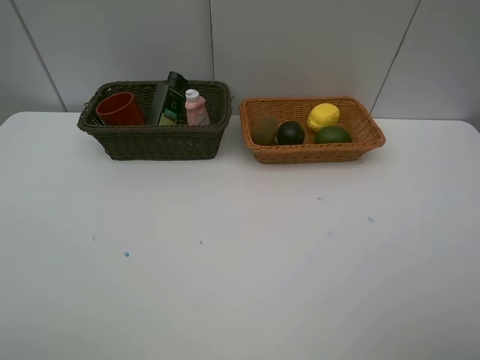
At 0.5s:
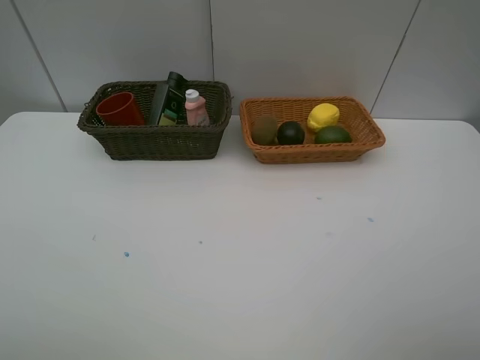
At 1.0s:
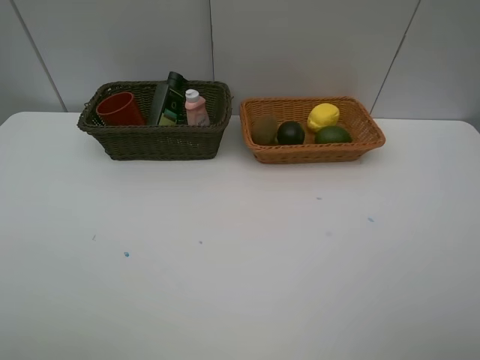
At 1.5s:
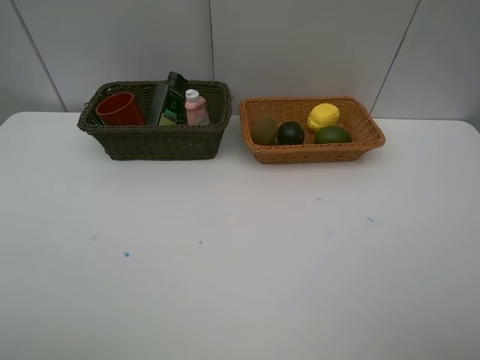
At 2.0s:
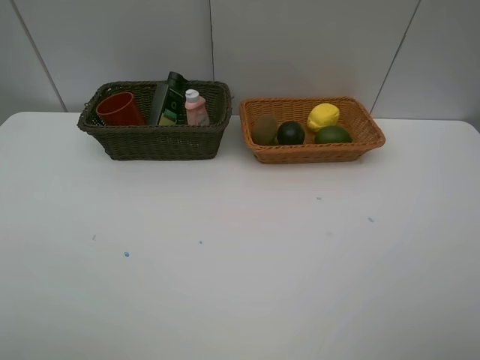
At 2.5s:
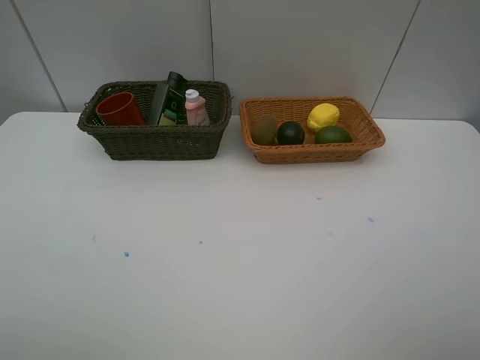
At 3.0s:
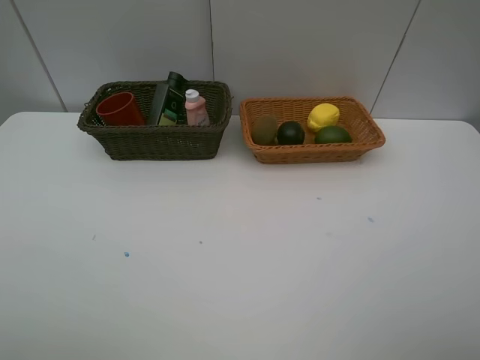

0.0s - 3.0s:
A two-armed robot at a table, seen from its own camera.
Task of the whole recording: Place multiple objects separately in different baskets.
1.5s - 3.0s: Neither gripper changes place.

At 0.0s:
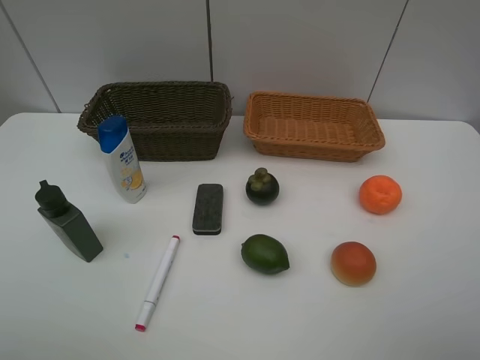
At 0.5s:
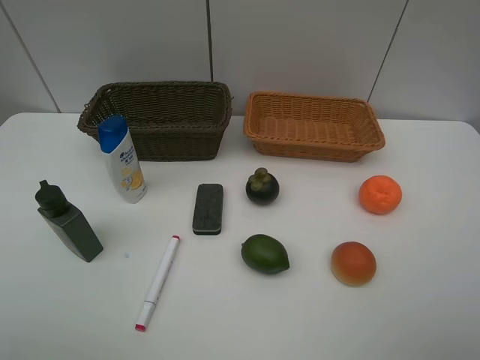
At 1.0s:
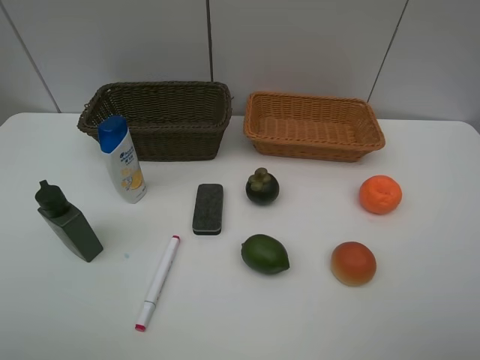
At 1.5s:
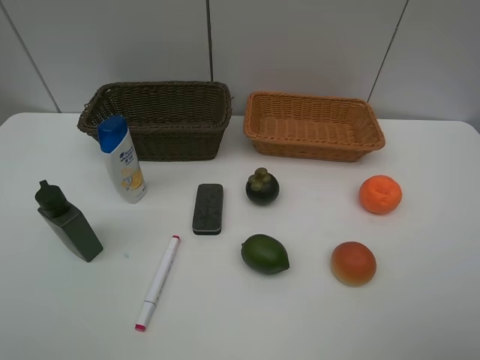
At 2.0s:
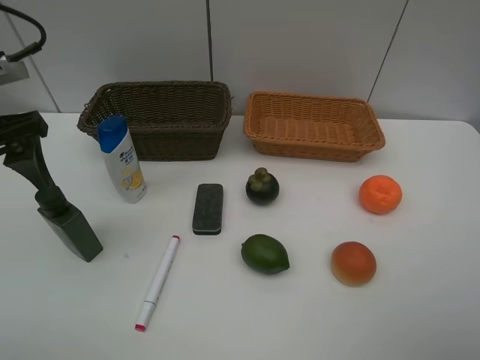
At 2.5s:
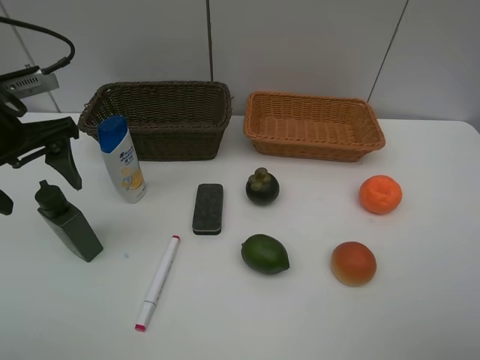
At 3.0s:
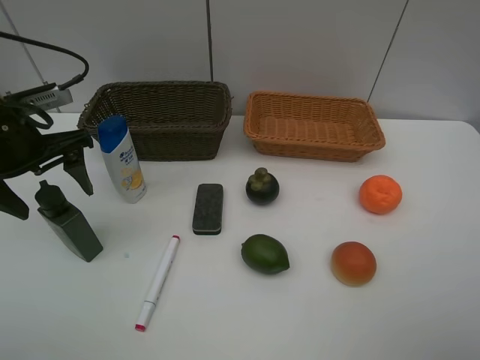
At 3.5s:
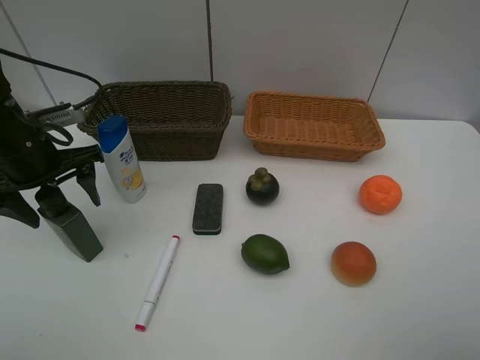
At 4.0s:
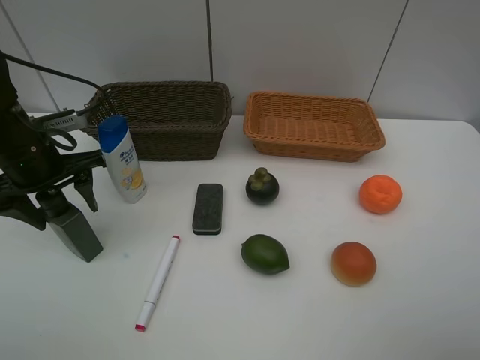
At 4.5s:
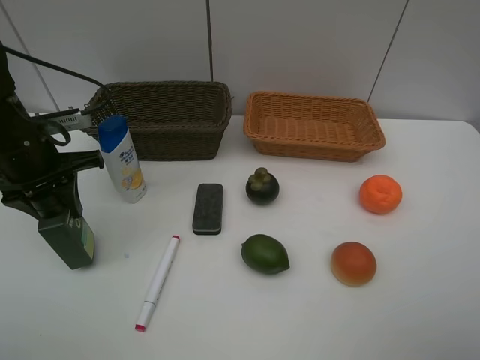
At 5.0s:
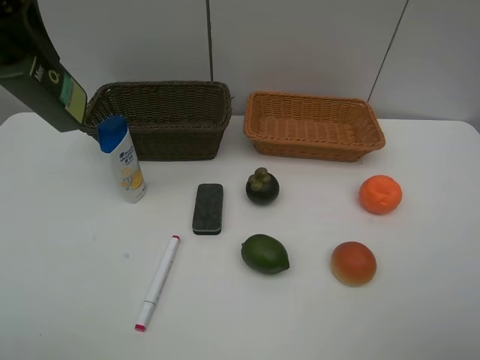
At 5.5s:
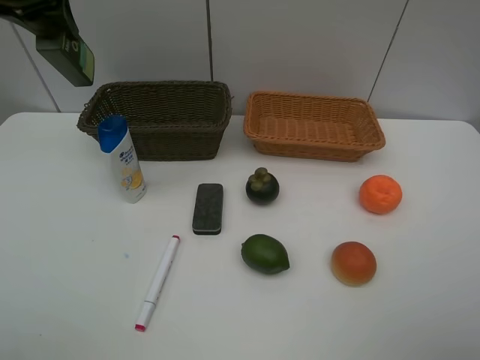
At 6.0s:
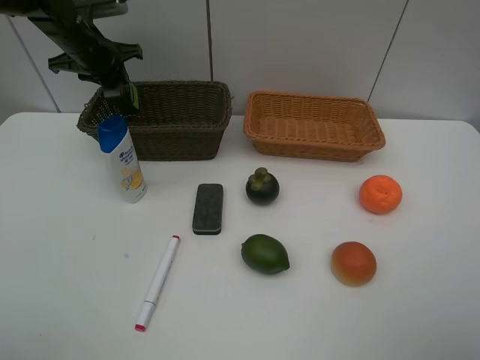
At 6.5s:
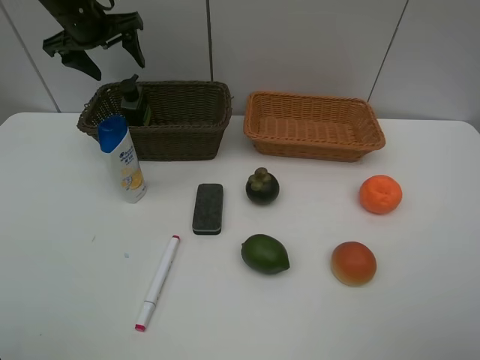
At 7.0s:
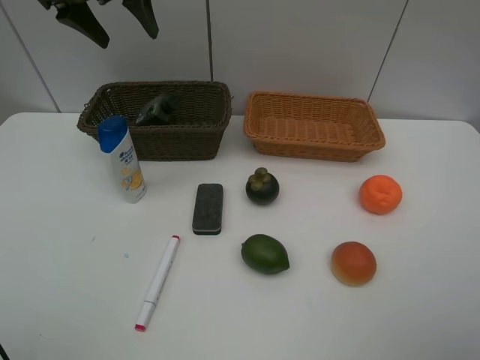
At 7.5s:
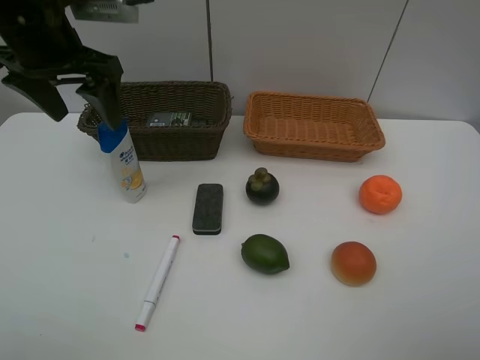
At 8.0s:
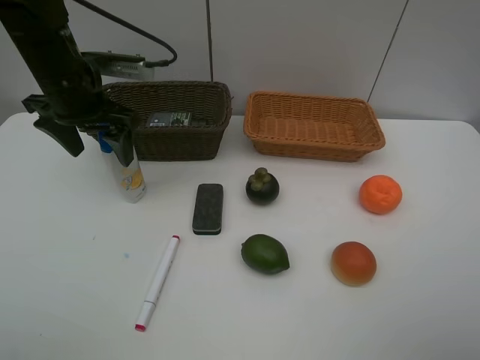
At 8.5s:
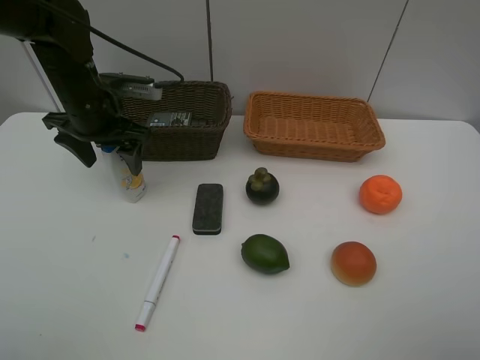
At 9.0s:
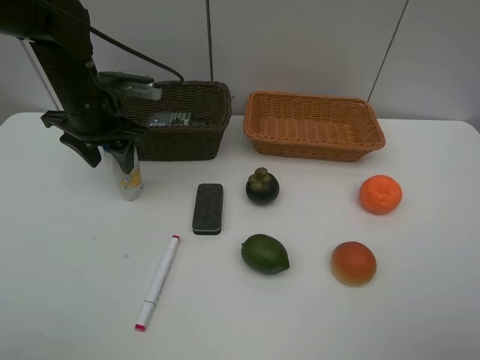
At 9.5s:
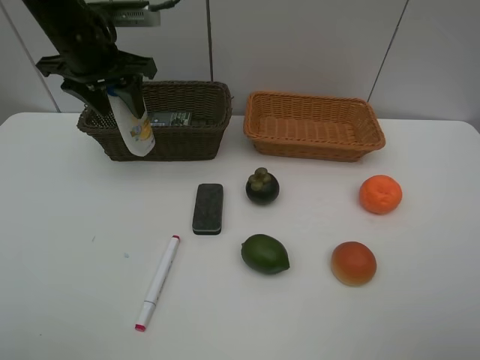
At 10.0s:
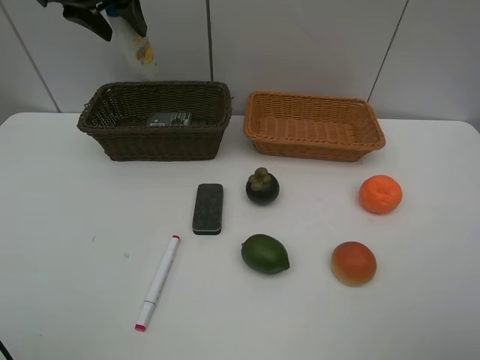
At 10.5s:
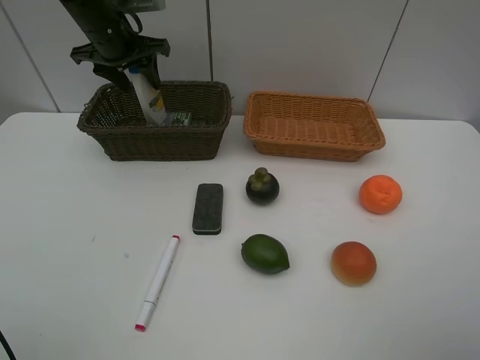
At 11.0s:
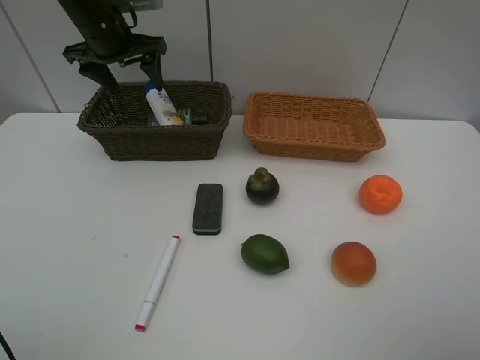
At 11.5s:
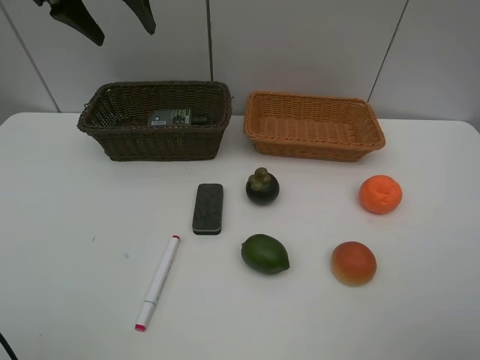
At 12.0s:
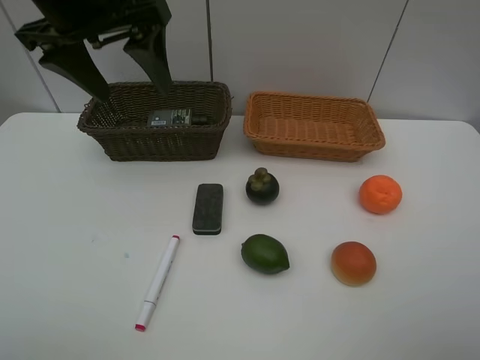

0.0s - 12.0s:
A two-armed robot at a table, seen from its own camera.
Task of the whole recording: Place multiple objects separately in different baskets.
Step, 0.0s - 4.5s: Pick up the hard facial cleanser with left gripper.
Step, 5.0s - 6.0s: Place the hard facial cleanser in the dark basket with left gripper.
Step, 6.5s - 9.0s: Pick up the shampoo with left gripper.
Step, 9.5s - 11.0s: Place the shampoo in the dark basket with left gripper.
0.0s - 2.0s: The left gripper travels forward by some 25 cm.
2.0s - 4.0s: The left gripper goes about 10 cm downward and forward.
4.0s - 6.0s: The left gripper travels forward by about 20 cm.
6.0s - 8.0s: The left gripper is displaced backward by approximately 15 cm, and opens.
8.0s - 10.0s: The left gripper travels upward and forward by some 15 cm, and closes up.
10.0s - 12.0s: The left gripper moves backward, approximately 15 cm, and opens.

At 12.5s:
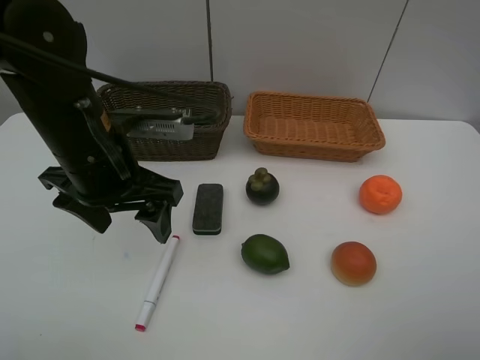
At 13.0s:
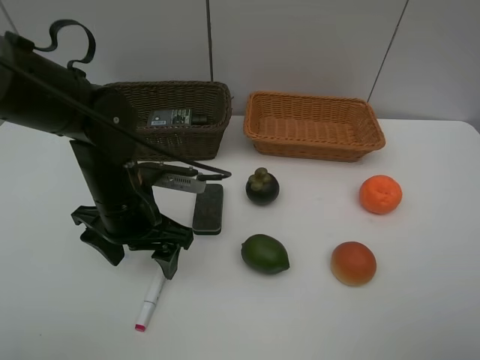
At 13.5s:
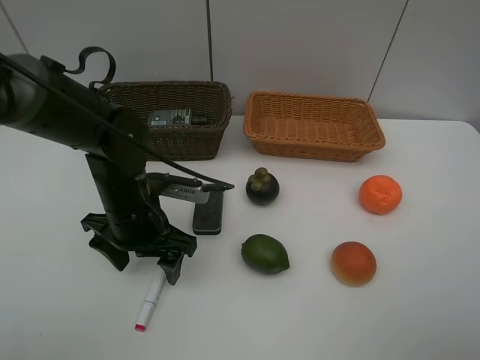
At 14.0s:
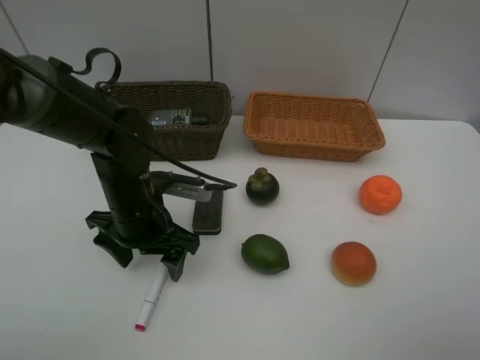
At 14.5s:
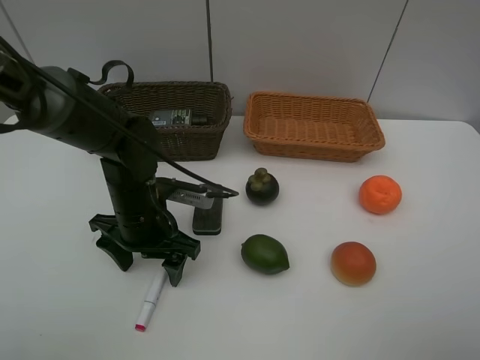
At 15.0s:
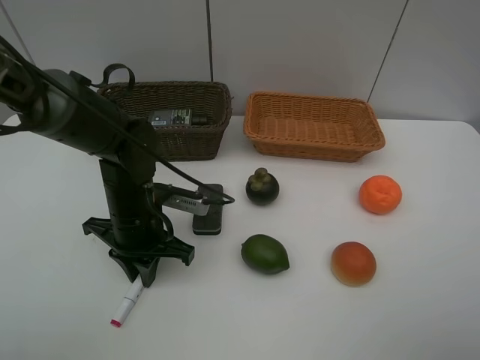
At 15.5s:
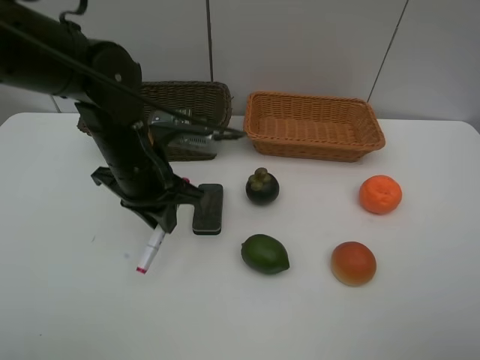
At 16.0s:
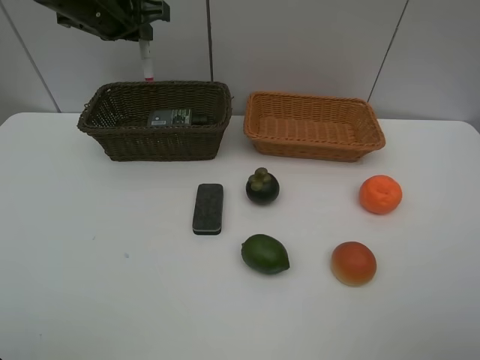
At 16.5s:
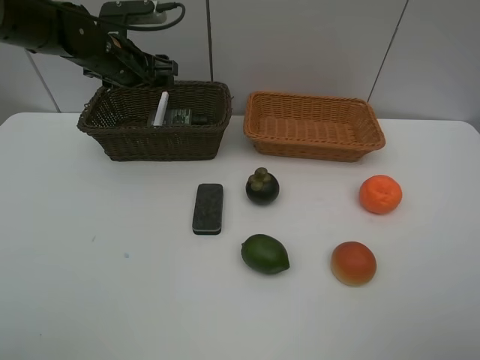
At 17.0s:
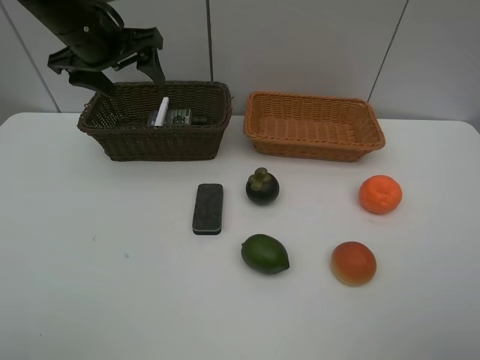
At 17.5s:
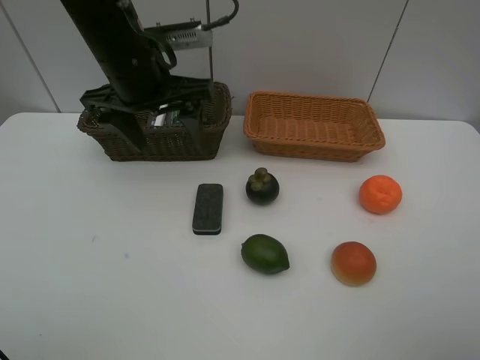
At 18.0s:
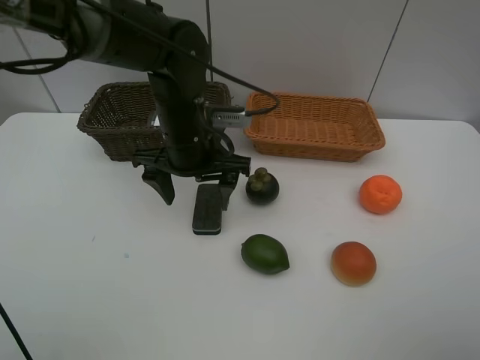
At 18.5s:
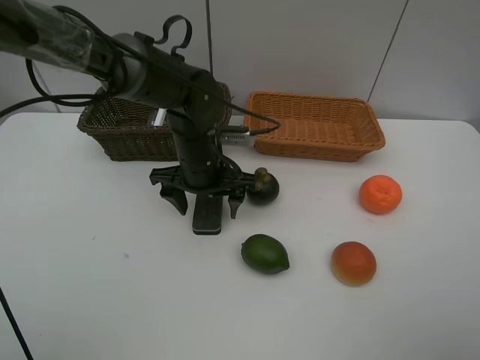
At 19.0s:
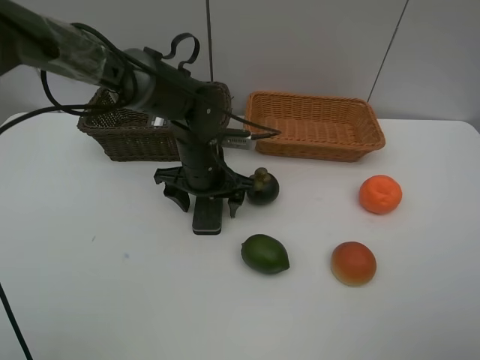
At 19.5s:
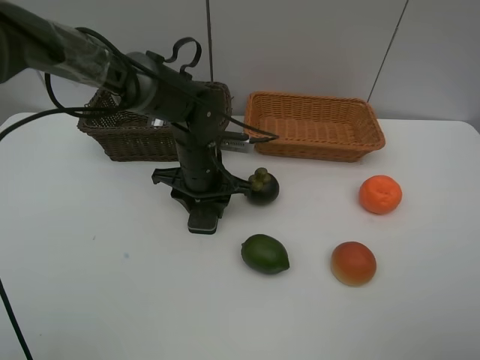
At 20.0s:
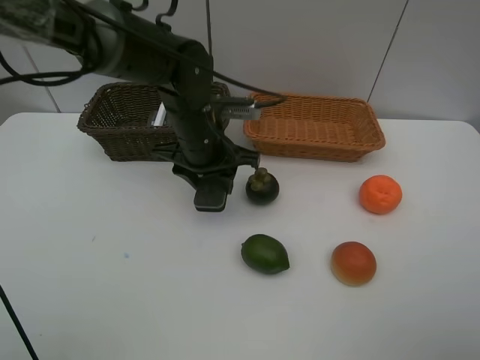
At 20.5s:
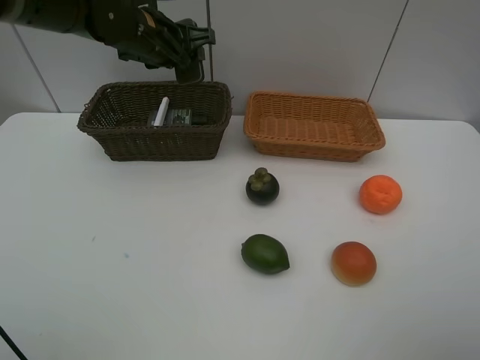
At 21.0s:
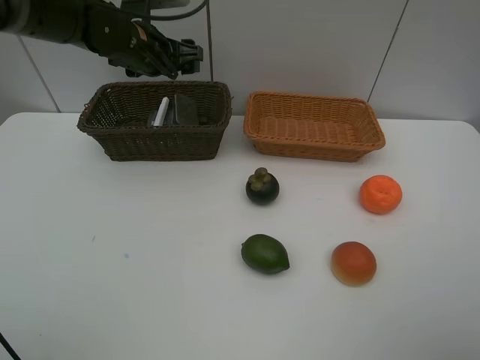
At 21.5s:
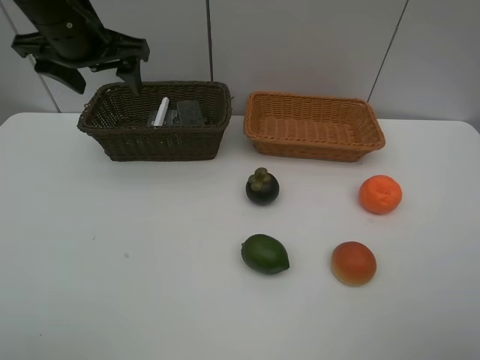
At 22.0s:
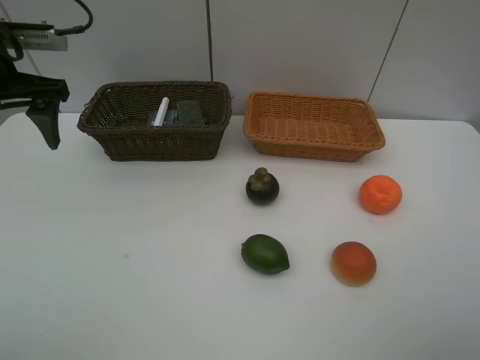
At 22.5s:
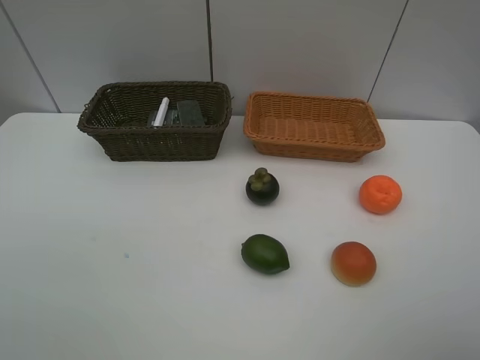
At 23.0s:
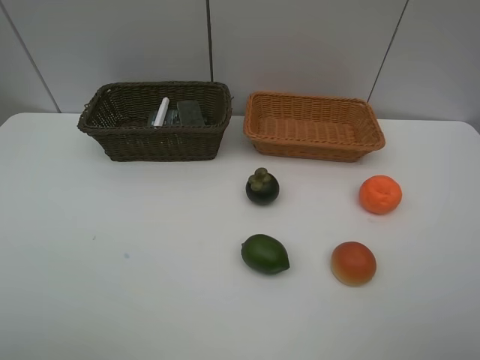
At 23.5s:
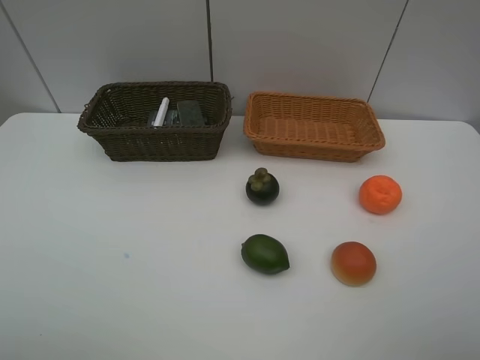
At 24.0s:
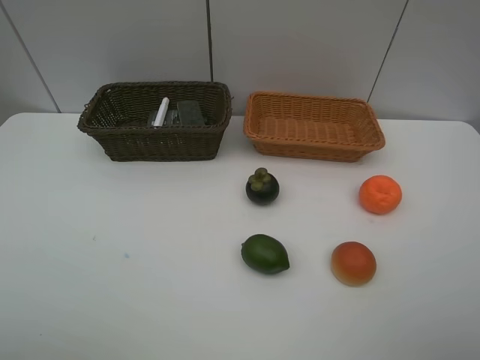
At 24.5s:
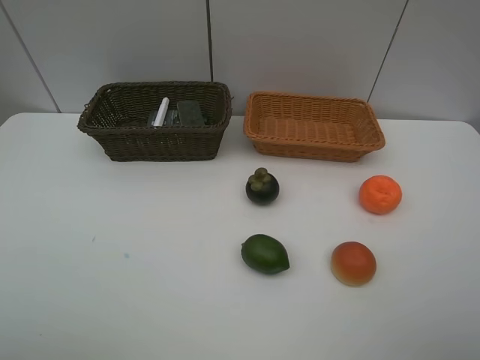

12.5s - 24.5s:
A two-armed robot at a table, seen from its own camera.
Task of the whole recording: Place multiple objects separately in different baskets.
Step, 12.5s - 15.0s: Pick up the red marker with left gripper.
Step, 15.5s - 16.5s: Place the red marker in the dark basket with left gripper.
Step, 17.0s - 19.5s: Pick up blackboard eraser with left gripper.
Step, 20.0s - 21.0s: Place the blackboard eraser in the dark basket with left gripper.
12.5s - 14.5s: The left gripper is displaced downward by roughly 10 cm.
14.5s - 16.5s: The left gripper is displaced forward and upward by approximately 20 cm, and closes, then opens again.
16.5s - 18.5s: The left gripper shifts approximately 20 cm to the right, backward and downward.
18.5s - 20.5s: The left gripper shifts roughly 20 cm upward, forward and to the left, and closes up.
20.5s - 22.5s: The left gripper goes some 35 cm backward and to the left, and opens its fingers.
